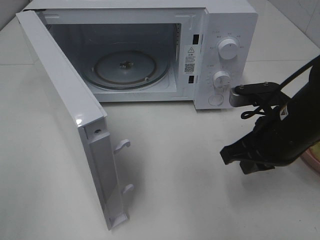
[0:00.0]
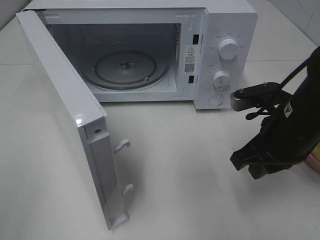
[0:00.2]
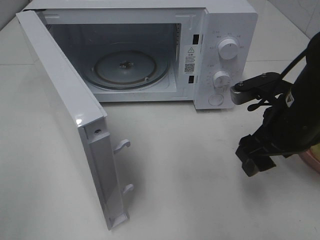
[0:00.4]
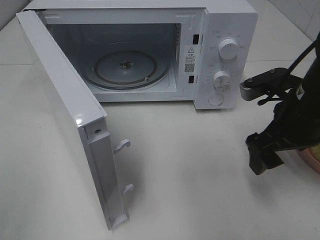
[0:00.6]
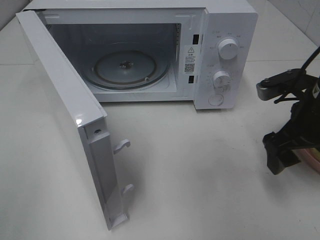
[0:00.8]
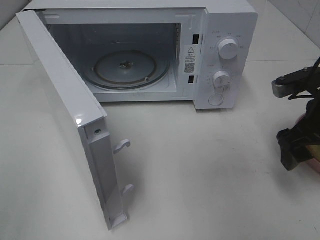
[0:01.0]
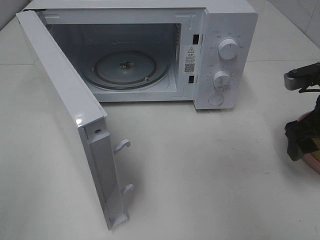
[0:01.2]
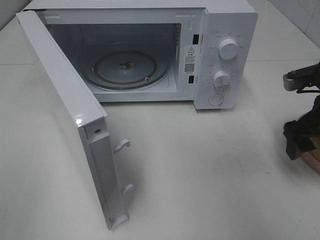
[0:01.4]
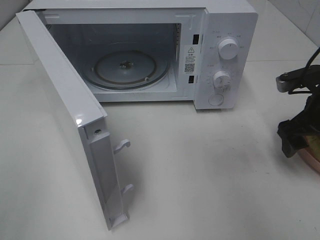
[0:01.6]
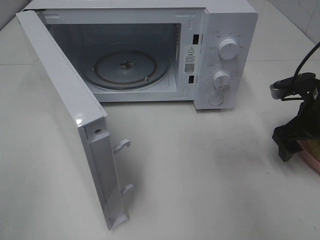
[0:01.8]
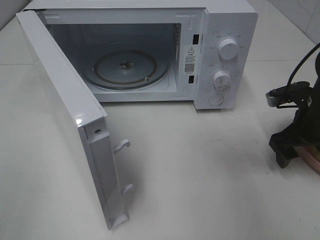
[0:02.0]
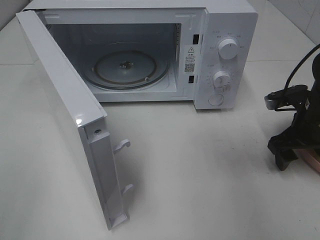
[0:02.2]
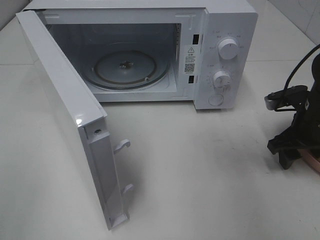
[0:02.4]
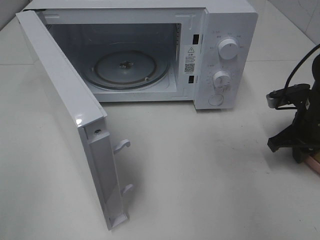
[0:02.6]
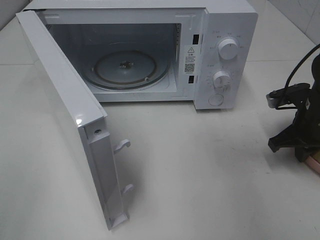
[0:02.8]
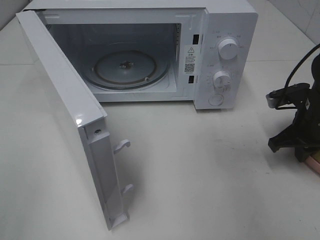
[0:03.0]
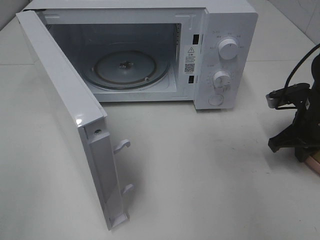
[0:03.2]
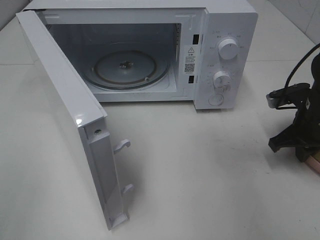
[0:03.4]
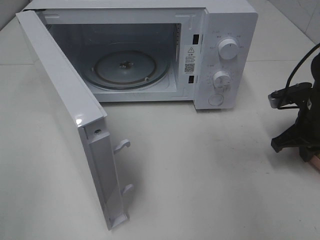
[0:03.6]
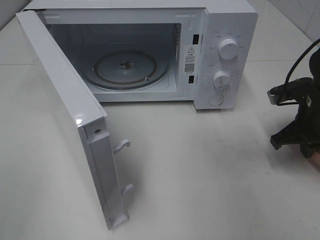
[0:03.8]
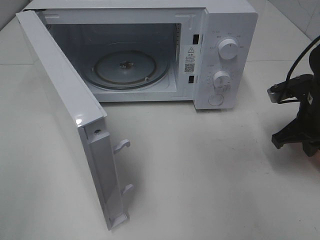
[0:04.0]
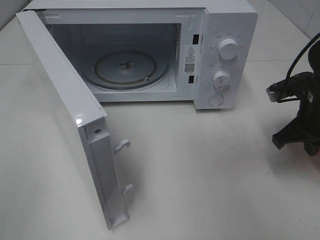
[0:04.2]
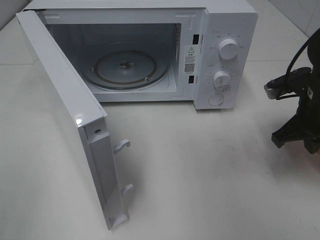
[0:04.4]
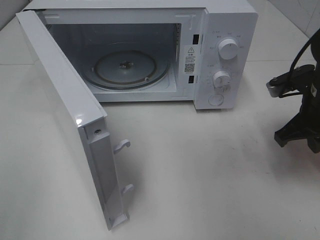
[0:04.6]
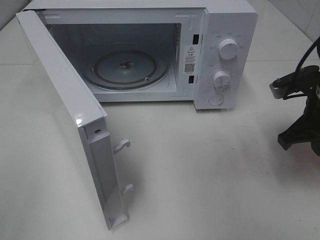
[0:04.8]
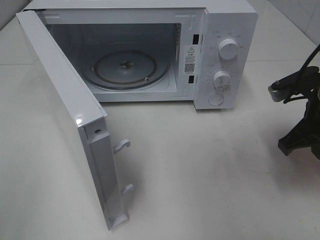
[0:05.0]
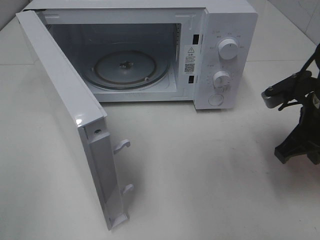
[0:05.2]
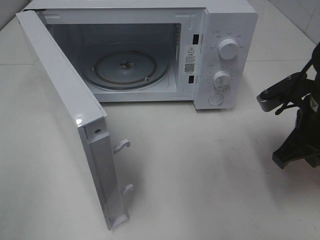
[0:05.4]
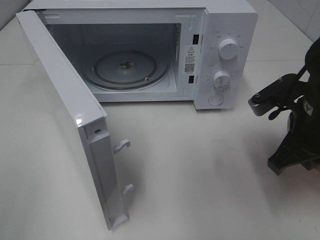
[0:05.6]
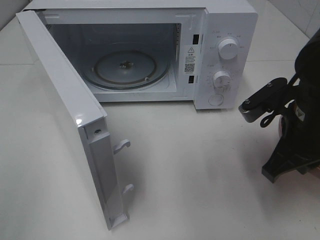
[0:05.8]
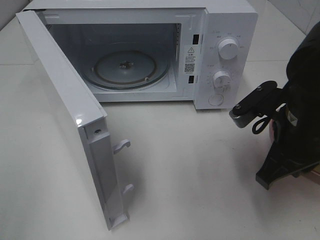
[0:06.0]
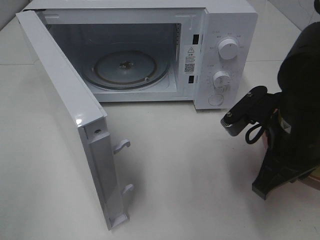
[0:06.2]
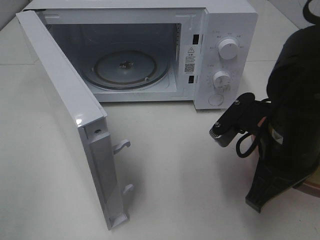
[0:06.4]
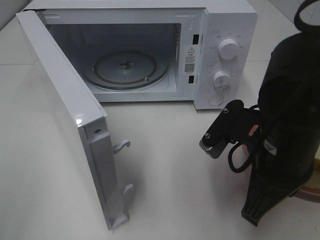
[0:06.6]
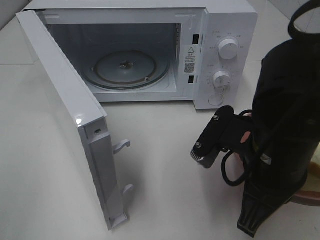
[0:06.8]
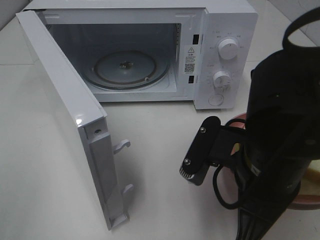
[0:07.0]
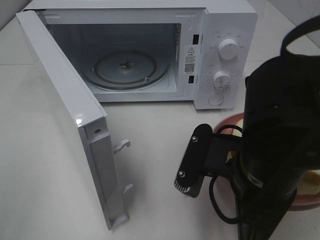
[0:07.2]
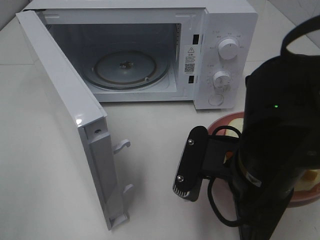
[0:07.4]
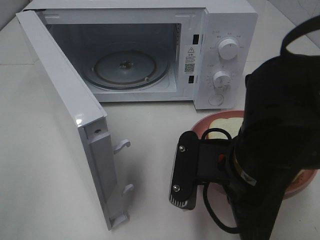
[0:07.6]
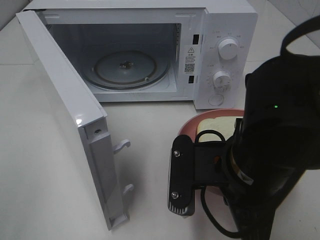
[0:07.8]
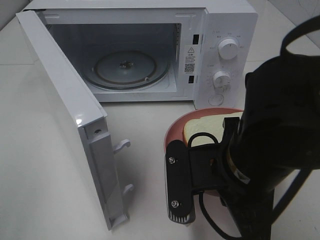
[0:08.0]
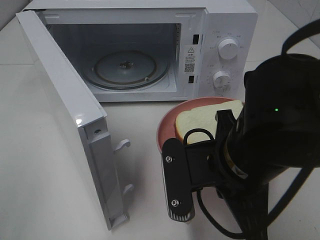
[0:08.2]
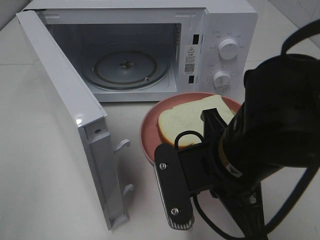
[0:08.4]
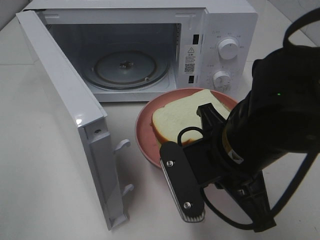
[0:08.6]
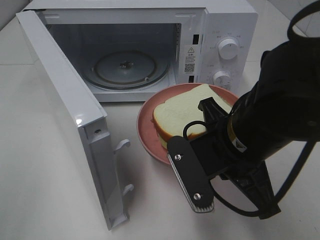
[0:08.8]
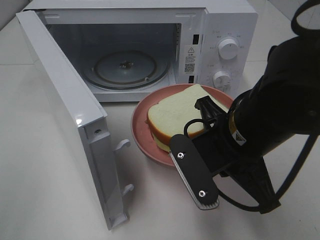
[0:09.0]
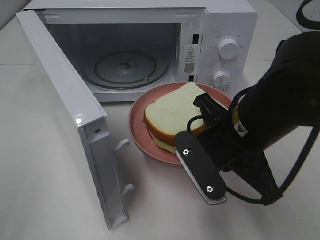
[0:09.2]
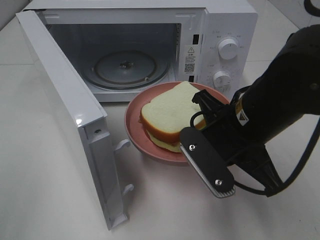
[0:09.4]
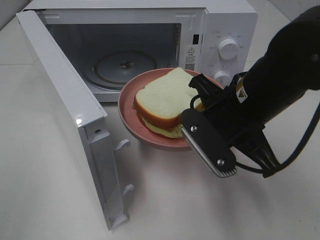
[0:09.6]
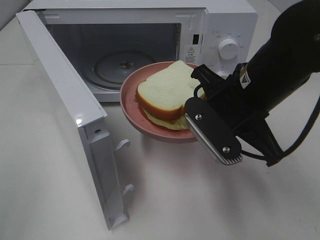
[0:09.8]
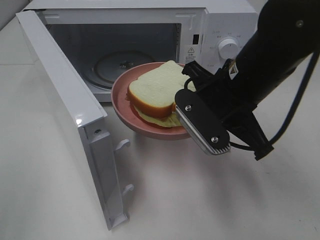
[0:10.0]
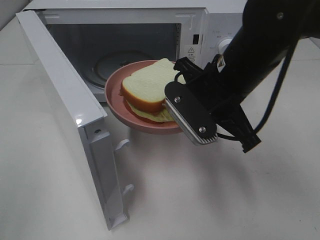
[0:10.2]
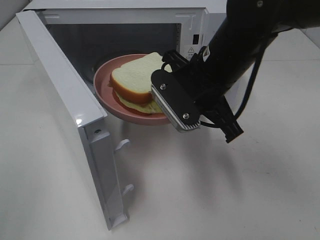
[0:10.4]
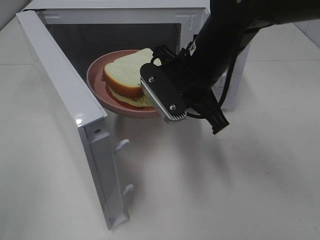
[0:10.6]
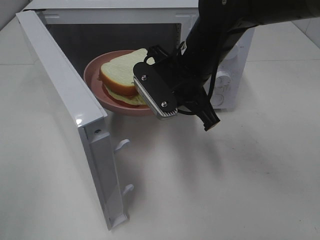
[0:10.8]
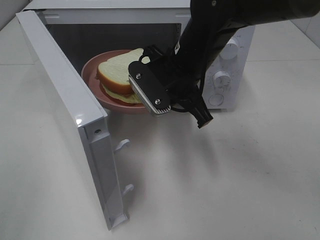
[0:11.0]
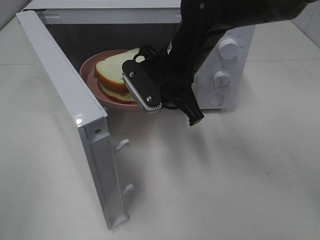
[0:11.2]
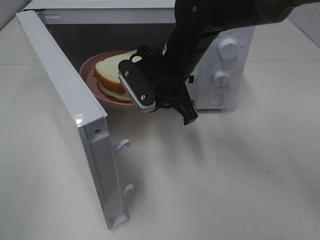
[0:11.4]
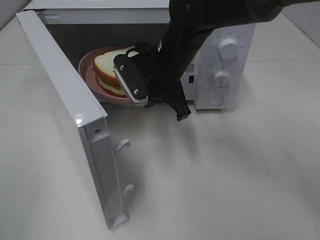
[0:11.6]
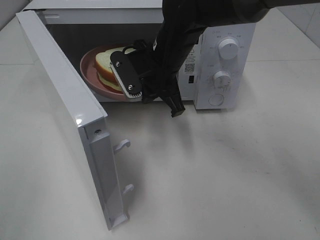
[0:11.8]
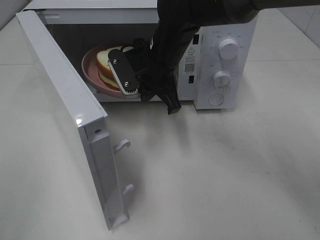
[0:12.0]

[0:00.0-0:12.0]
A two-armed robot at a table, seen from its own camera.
Task of the whole recording: Heat Sandwich.
Step, 0:00.0 to 0:03.0: Right hand: grab the plate with the sandwich.
0:00.0 to 0:01.6: The right gripper is displaced to the right and forward by about 10 cm, and opens its fingers.
0:01.6 to 0:03.0: The right gripper closes.
0:03.0 to 0:04.4: The right gripper ends up about 5 cm from where it was.
0:04.4 to 0:06.0: The right gripper travels to the left and backward by about 10 cm.
0:06.0 to 0:07.6: The right gripper shifts about 10 cm to the left and backward.
0:09.0 to 0:10.4: The right gripper travels forward by about 10 cm.
0:10.4 to 0:12.0: The right gripper shifts some 10 cm forward and to the left.

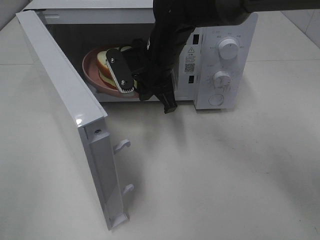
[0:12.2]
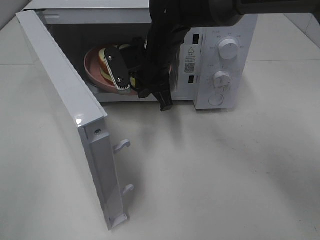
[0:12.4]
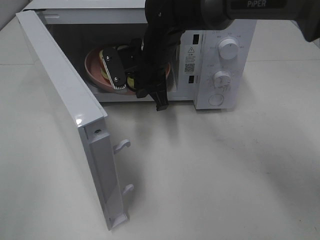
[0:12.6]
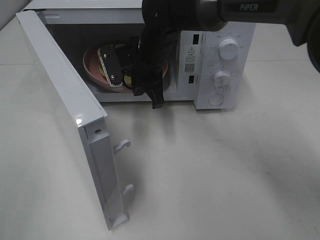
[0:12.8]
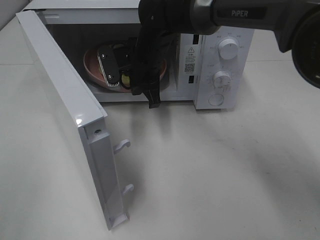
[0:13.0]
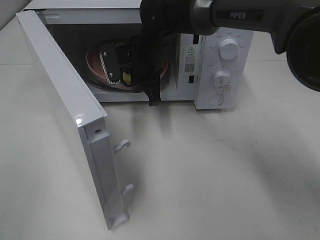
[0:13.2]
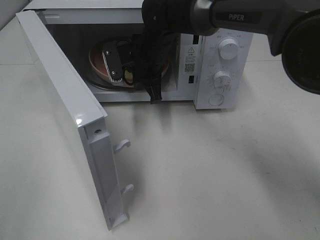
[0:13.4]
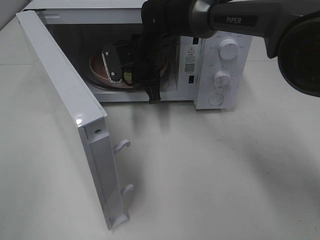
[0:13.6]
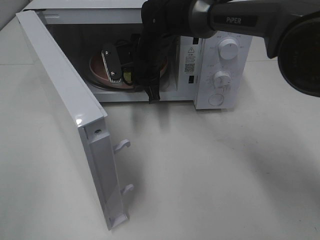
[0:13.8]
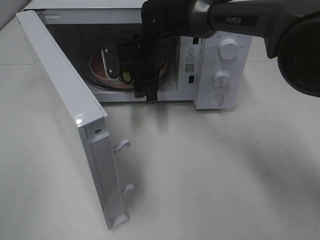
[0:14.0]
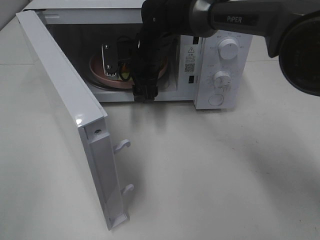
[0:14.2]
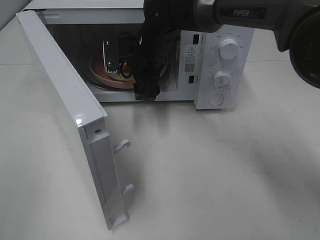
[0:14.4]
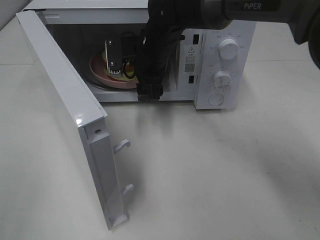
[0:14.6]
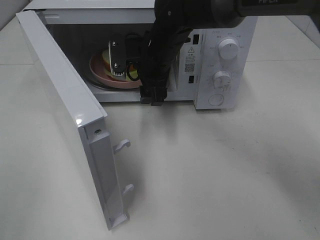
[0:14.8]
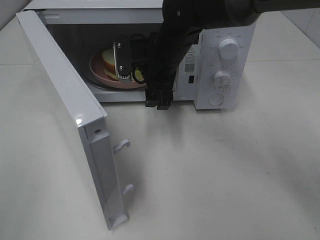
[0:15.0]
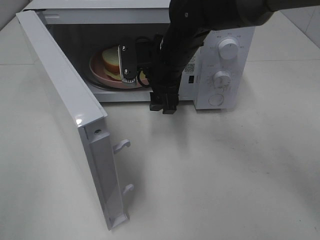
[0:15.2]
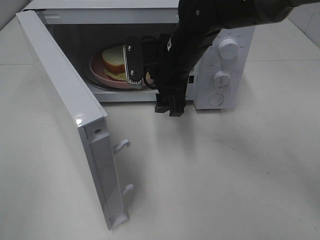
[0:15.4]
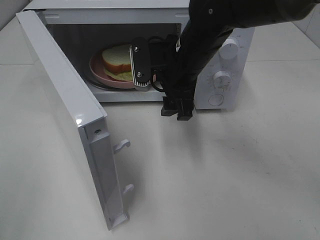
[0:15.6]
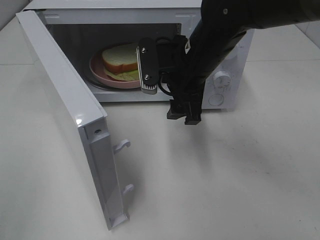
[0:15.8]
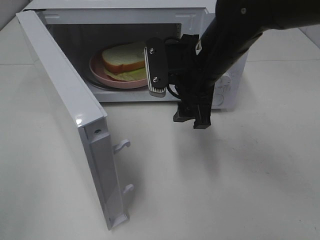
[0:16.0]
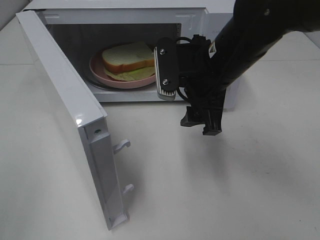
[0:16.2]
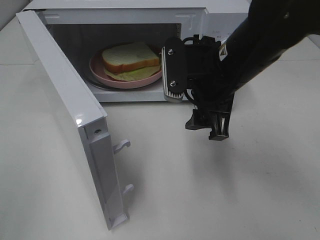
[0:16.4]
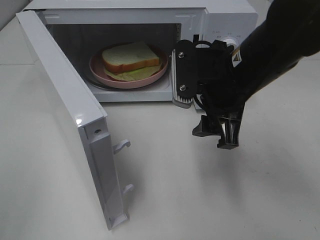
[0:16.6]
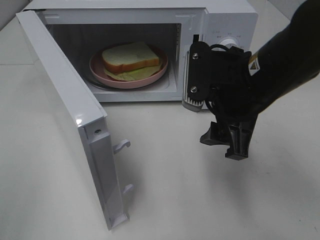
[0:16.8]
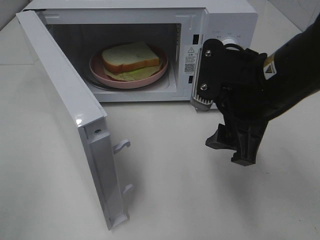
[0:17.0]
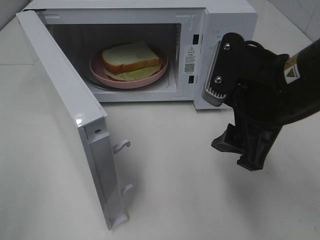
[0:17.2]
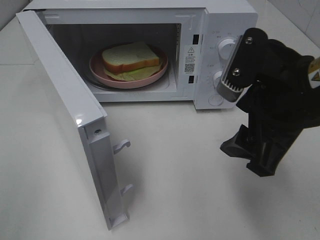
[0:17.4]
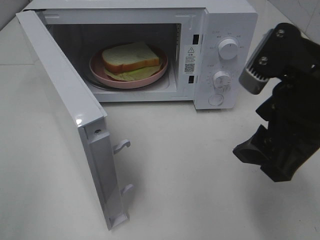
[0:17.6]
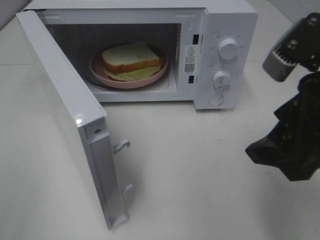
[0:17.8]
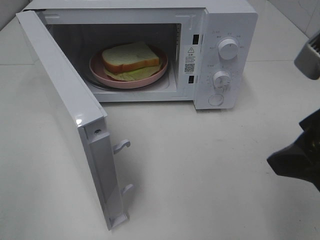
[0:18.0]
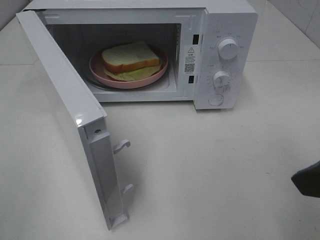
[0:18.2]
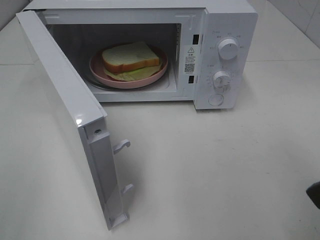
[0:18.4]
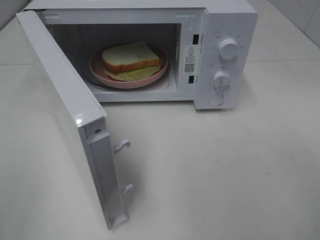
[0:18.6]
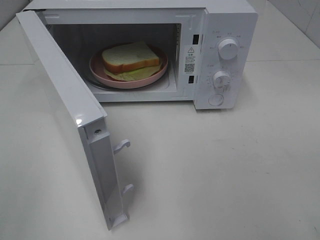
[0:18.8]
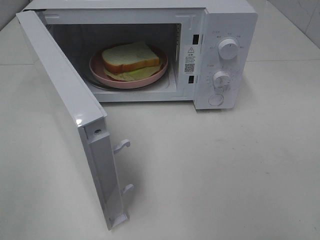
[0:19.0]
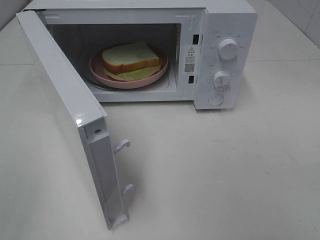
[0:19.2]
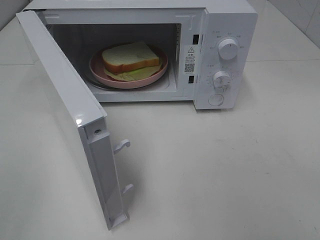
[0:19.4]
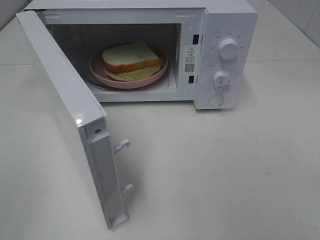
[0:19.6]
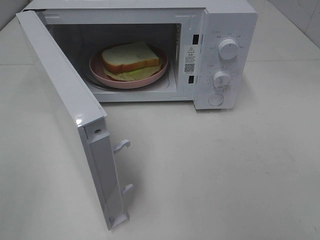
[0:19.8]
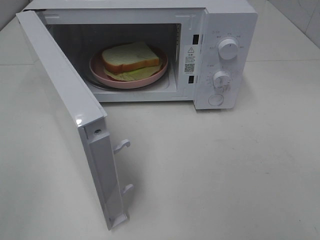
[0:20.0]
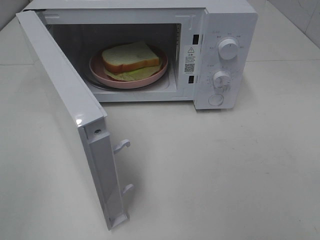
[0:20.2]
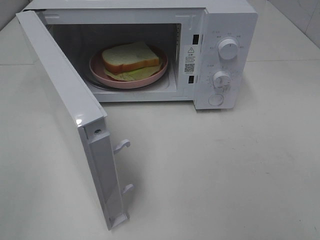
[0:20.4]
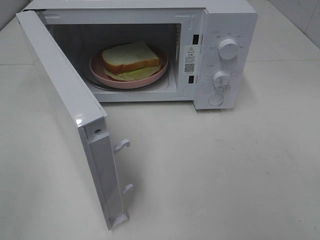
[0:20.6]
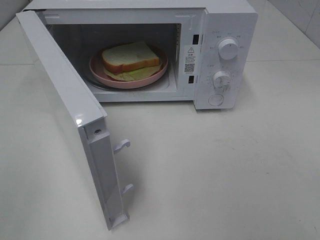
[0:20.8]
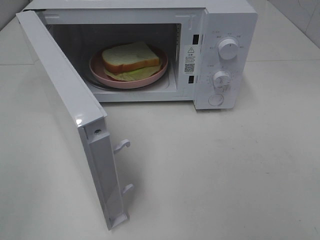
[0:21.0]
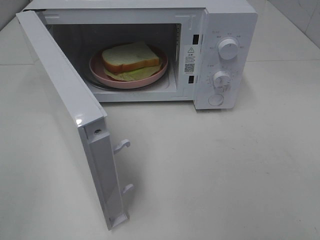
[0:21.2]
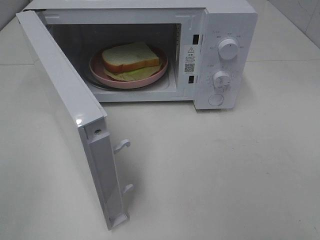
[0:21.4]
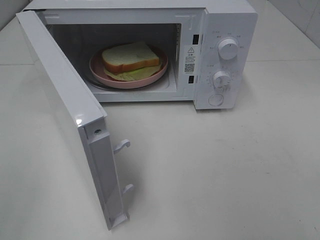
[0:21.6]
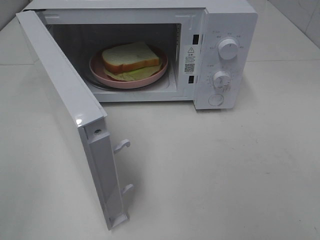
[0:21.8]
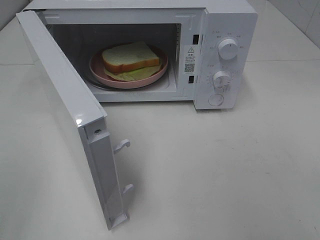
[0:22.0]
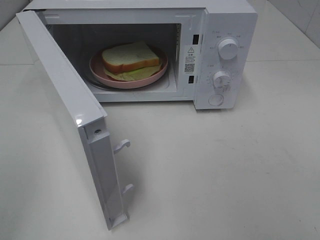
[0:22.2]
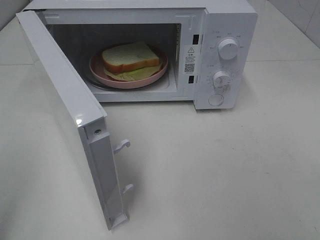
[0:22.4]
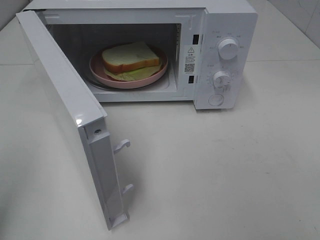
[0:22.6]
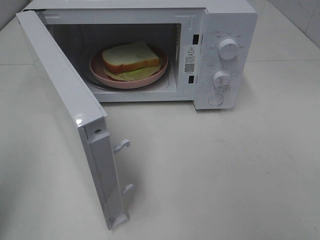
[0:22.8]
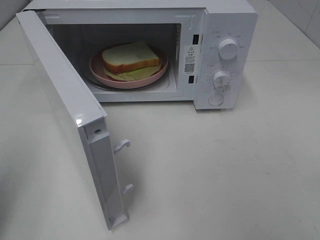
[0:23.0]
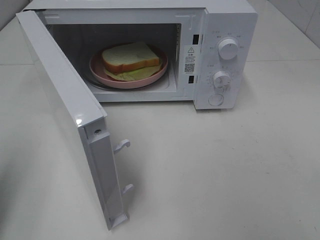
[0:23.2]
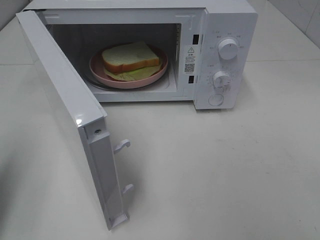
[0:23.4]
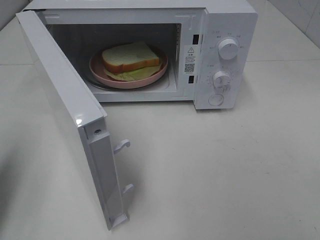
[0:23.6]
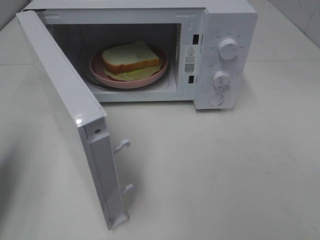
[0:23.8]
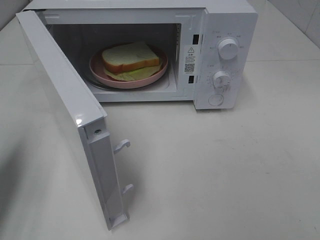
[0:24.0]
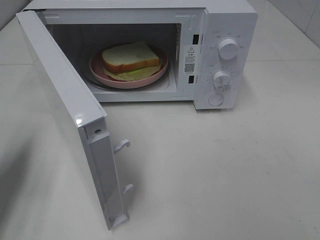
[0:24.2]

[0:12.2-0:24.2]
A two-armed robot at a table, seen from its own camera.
Task of the whole recording: Heat Sandwich.
Step, 0:12.2 to 0:14.6: Right hand: place the plate in the microwave.
0:12.2 to 0:13.8: The right gripper travels forward by approximately 5 cm.
0:13.8 to 0:15.2: The right gripper travels backward by about 5 cm, and opens.
0:15.2 to 0:16.6: The right gripper is displaced backward and to the right by about 15 cm.
0:16.6 to 0:18.2: The right gripper moves backward, to the right and upward, about 20 cm.
0:18.2 to 0:19.8: The right gripper moves backward and to the right, about 15 cm.
0:19.8 to 0:21.2: Both grippers stay put.
0:22.6 to 0:24.2: The left gripper travels forward and downward by roughly 15 cm.
